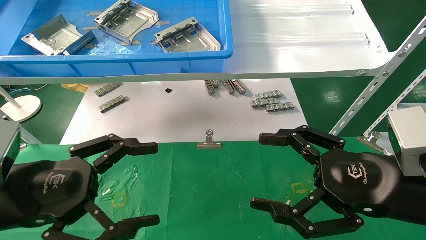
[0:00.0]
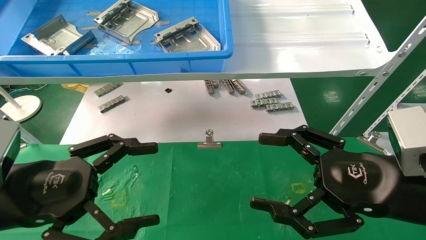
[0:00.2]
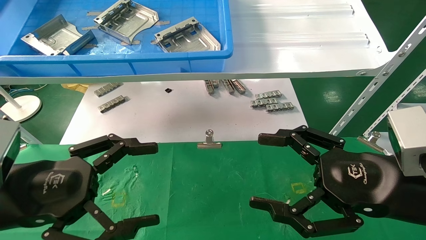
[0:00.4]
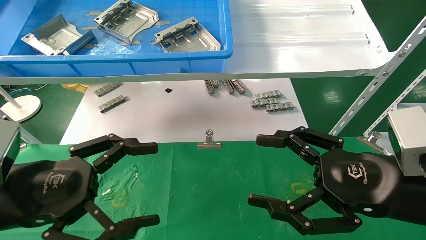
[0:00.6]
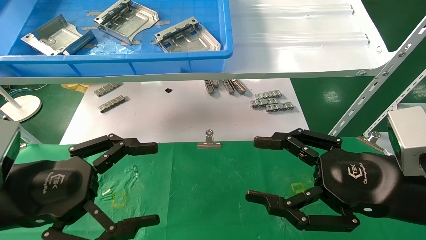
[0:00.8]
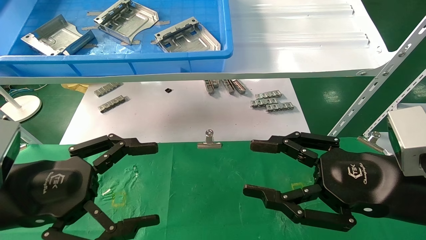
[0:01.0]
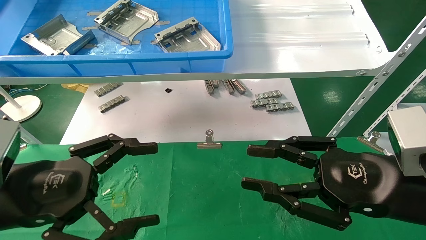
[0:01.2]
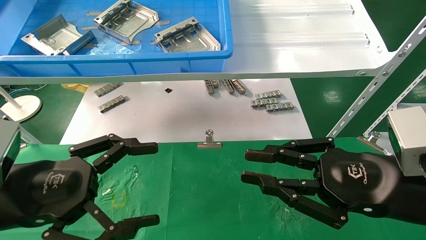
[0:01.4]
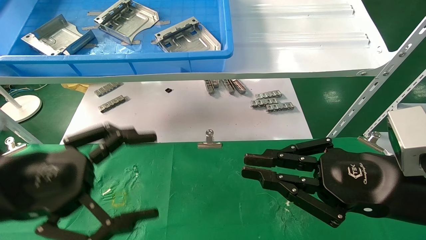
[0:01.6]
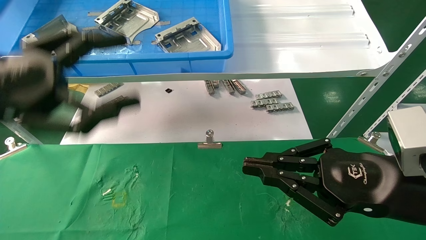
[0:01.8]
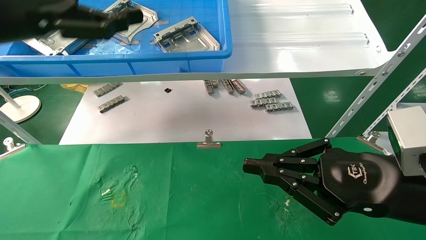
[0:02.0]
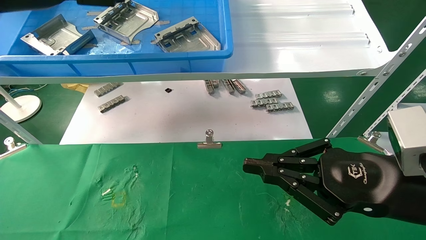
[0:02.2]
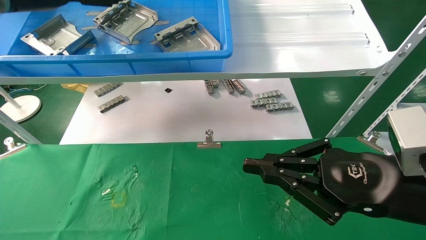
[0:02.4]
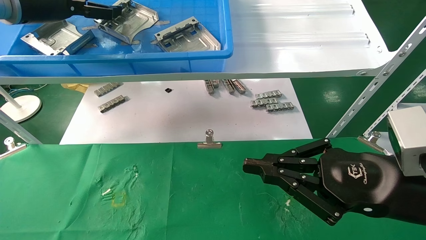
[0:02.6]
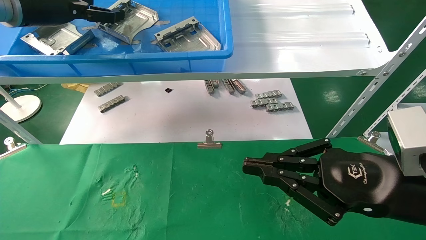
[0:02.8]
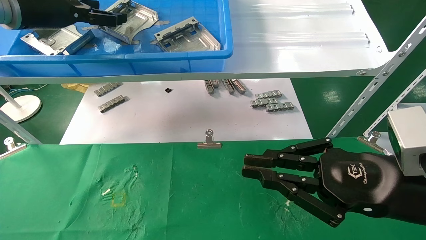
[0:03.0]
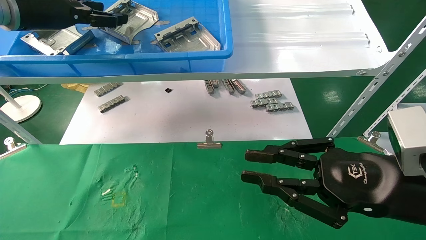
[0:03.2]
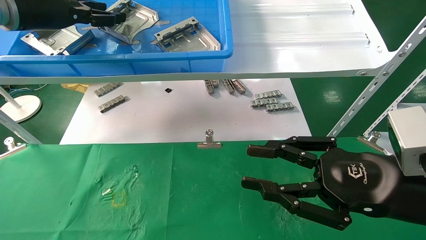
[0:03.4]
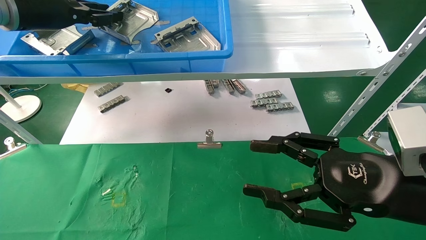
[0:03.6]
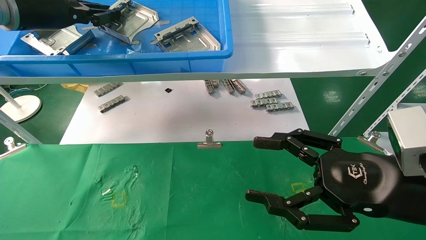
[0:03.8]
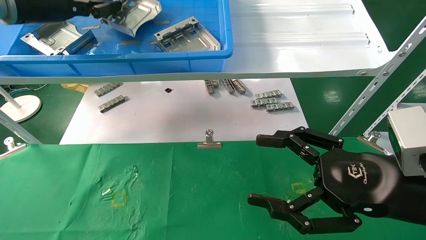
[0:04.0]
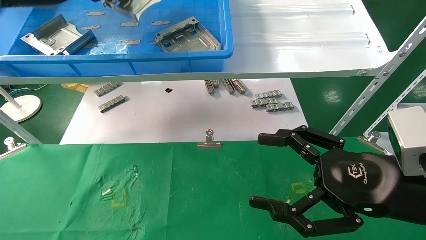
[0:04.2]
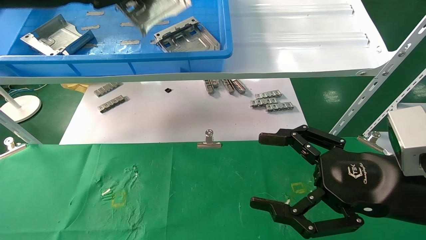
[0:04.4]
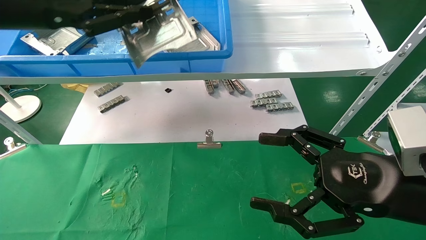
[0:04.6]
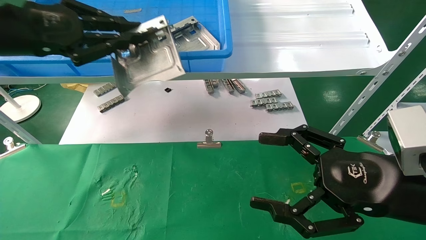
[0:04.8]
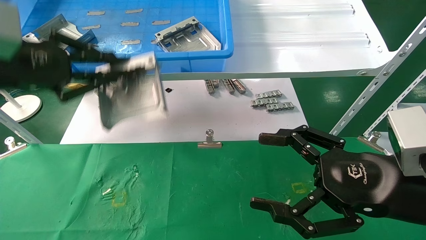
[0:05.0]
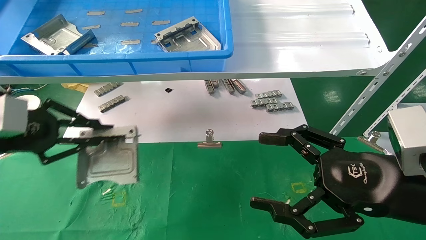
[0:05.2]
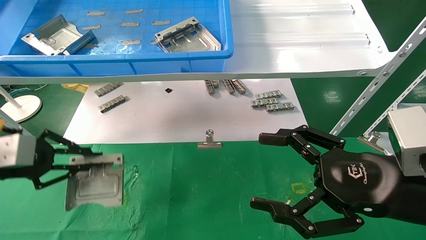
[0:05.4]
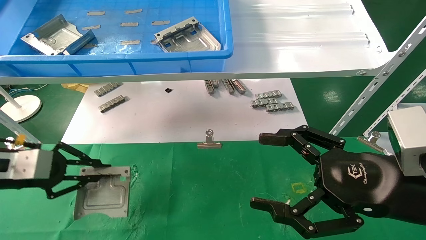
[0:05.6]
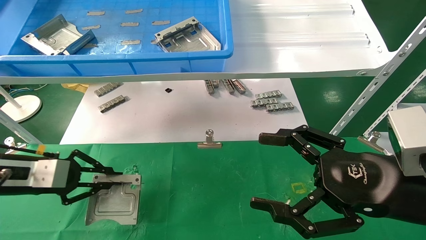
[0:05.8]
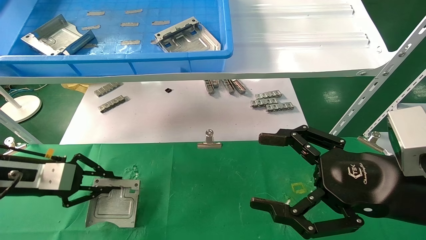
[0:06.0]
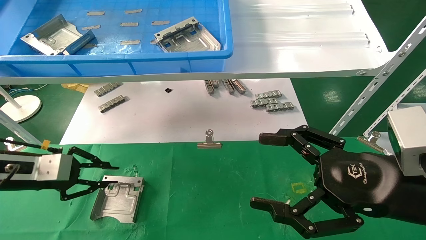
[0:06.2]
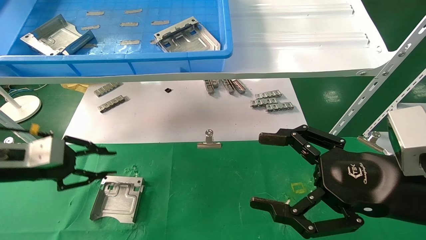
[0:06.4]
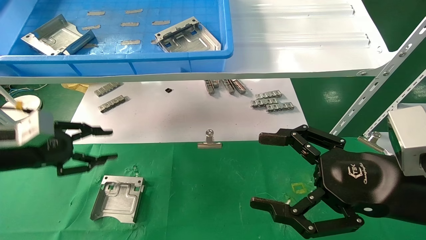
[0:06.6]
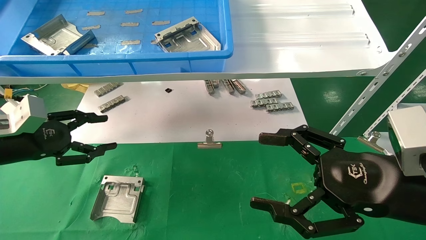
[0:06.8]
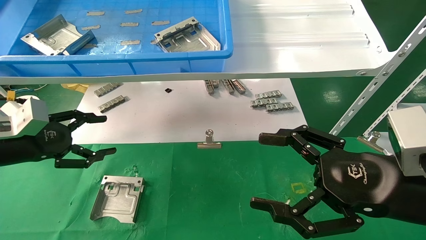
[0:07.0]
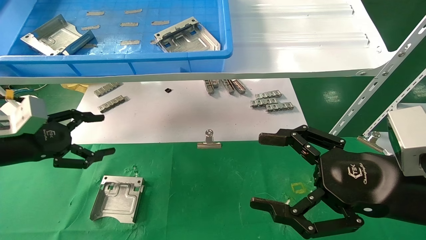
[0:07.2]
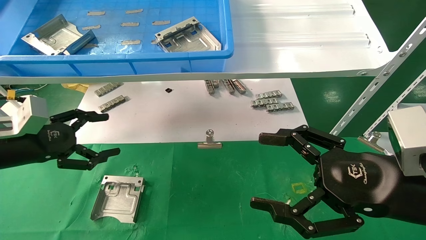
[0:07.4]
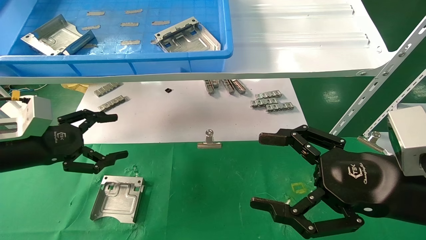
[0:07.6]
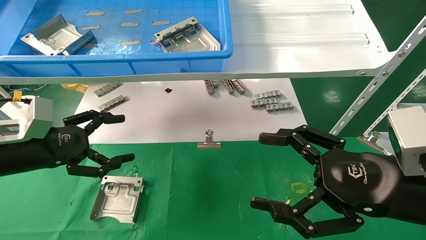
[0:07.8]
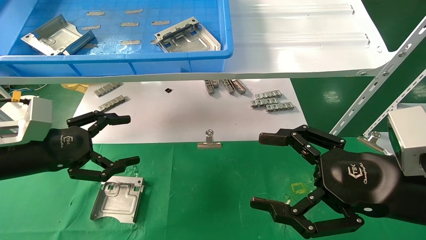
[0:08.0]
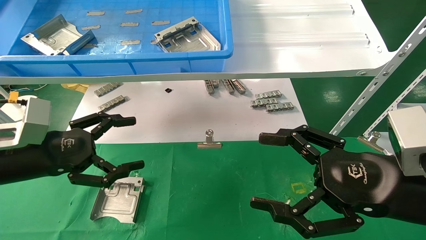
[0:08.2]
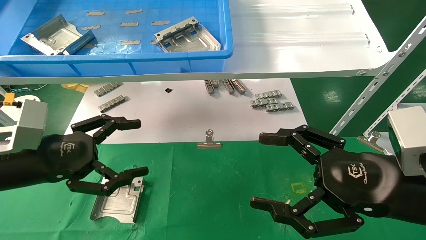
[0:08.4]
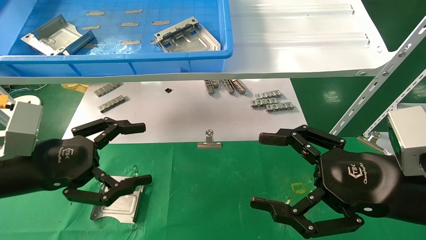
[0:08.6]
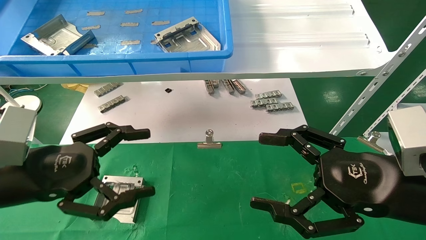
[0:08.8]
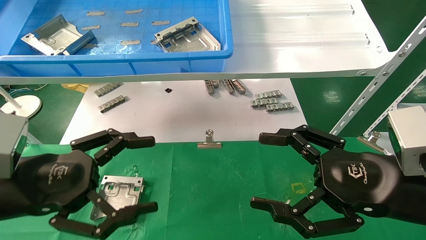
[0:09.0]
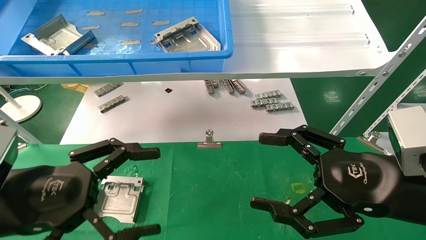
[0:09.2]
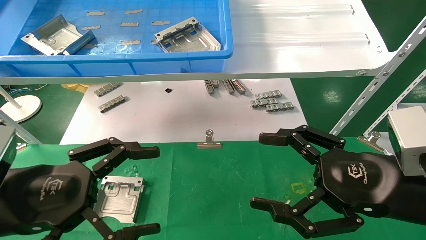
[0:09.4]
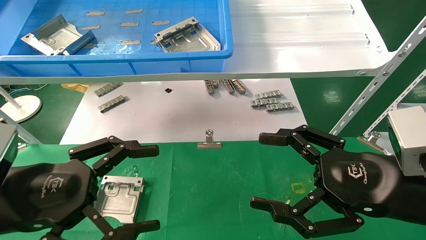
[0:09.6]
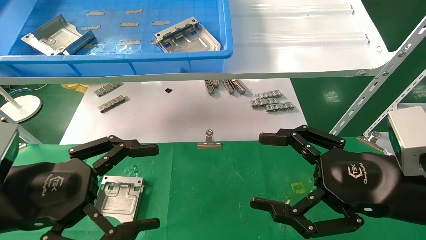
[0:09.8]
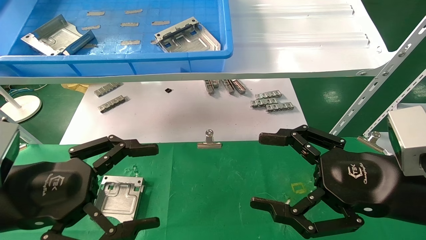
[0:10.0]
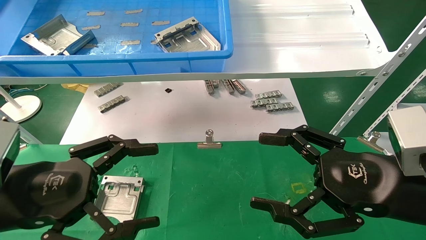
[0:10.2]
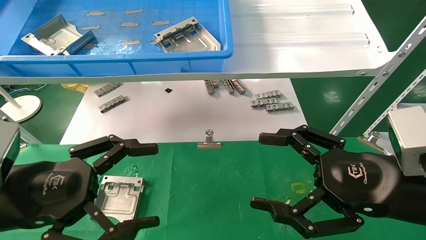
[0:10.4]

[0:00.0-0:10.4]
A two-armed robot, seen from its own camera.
Task of the whole recording: use the mechanical arm to pick up the parts and place them on the table.
Step, 0:01.2 to 0:04.2: Pick up the hard drive bracket from the feeding area.
Step, 0:04.4 to 0:07.2: Place the hard drive bracket into the box.
0:00.0 to 0:01.4: The right gripper closes its fingers.
0:01.4 to 0:03.0: The left gripper shifts some 30 cm upward and forward.
0:03.0 to 0:04.4: The right gripper opens its fingers. The left gripper moves backward, roughly 5 cm, and closes up.
0:04.4 to 0:06.0: The left gripper travels downward by some 25 cm.
0:06.0 to 0:07.4: The left gripper opens.
0:07.4 to 0:09.0: The left gripper shifts roughly 15 cm backward and to the right.
0:09.0 to 0:10.4: The grippers stay close to where they were, moving slightly.

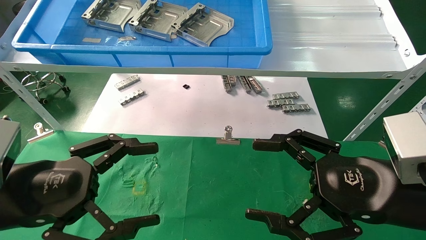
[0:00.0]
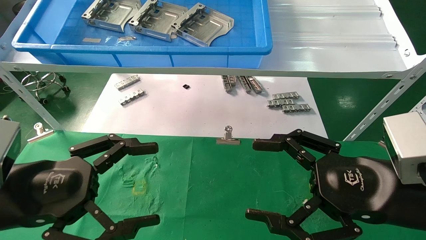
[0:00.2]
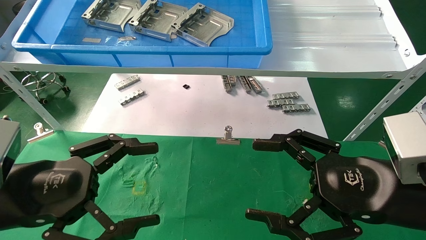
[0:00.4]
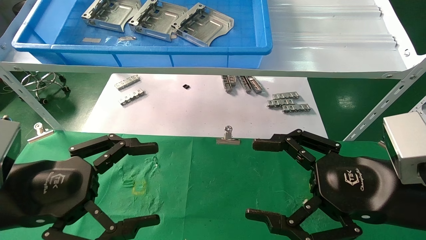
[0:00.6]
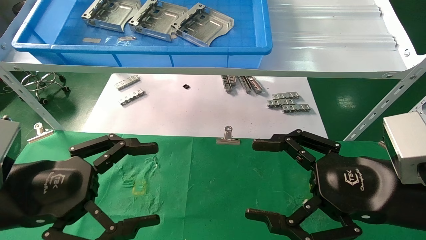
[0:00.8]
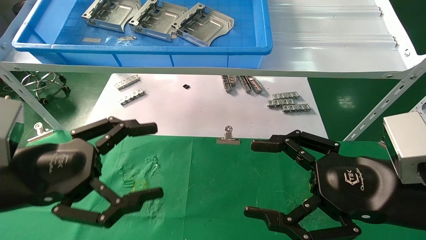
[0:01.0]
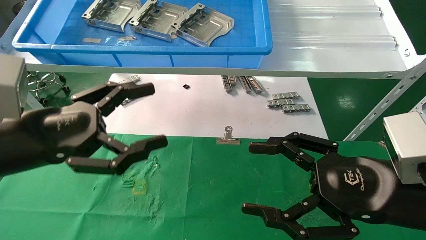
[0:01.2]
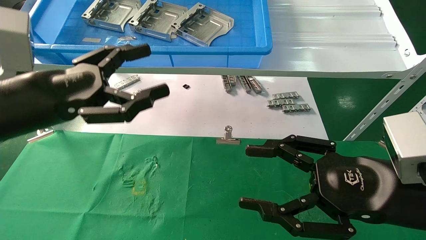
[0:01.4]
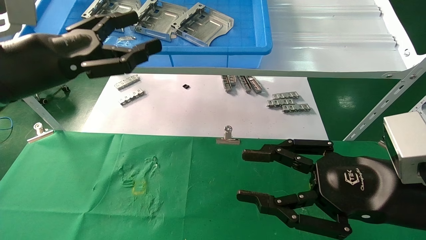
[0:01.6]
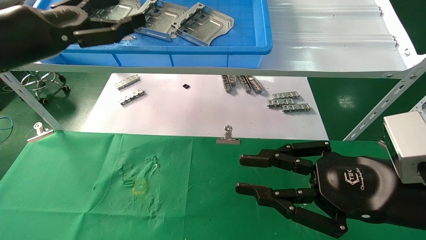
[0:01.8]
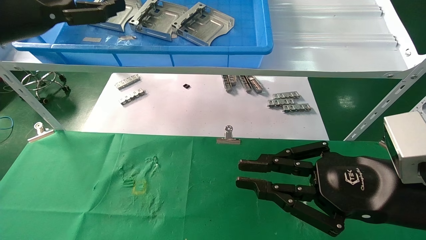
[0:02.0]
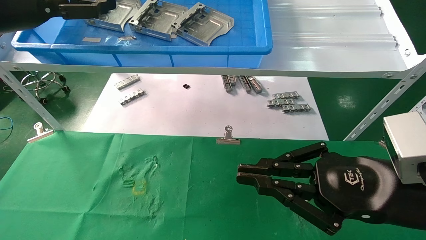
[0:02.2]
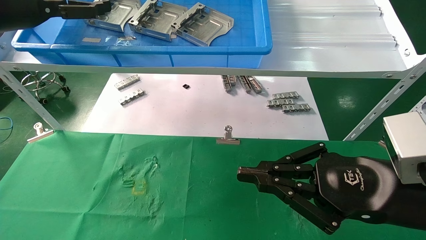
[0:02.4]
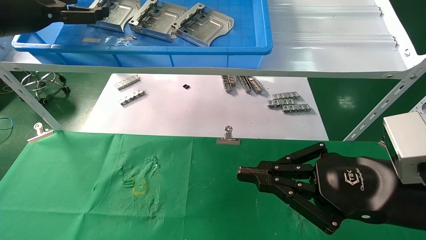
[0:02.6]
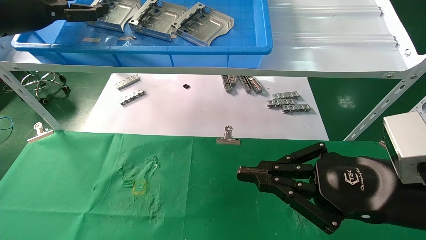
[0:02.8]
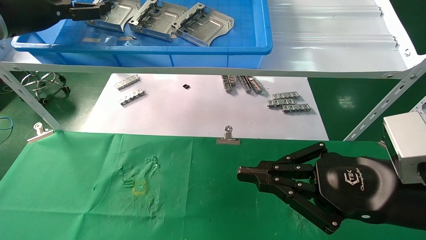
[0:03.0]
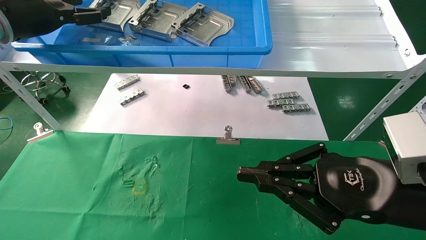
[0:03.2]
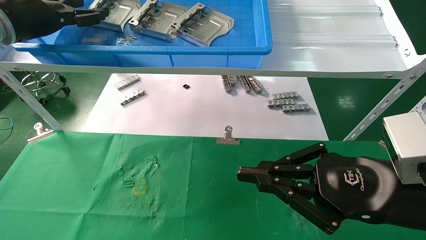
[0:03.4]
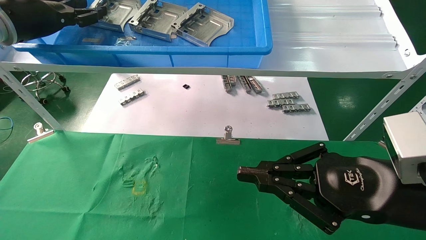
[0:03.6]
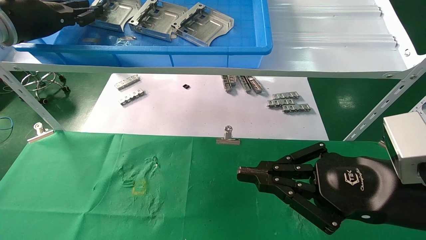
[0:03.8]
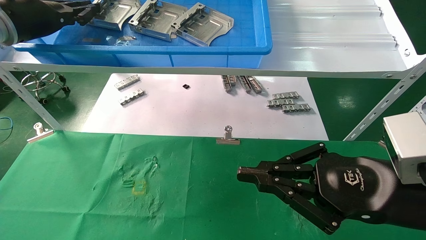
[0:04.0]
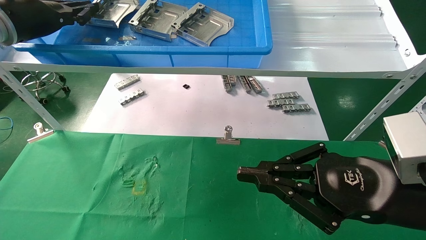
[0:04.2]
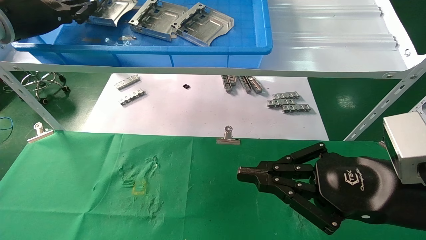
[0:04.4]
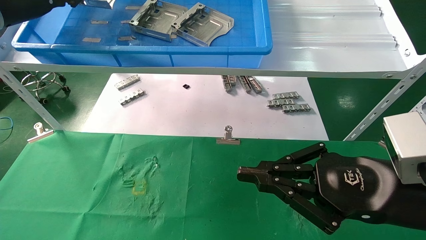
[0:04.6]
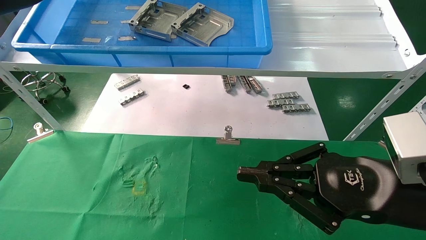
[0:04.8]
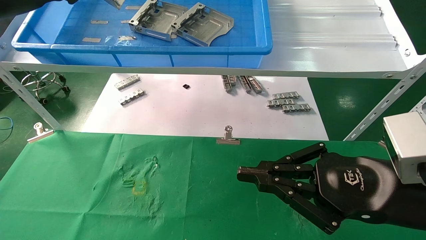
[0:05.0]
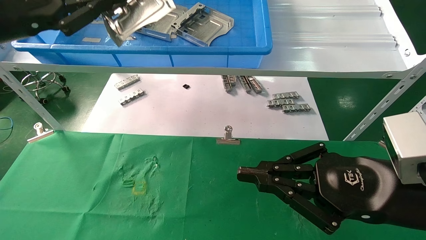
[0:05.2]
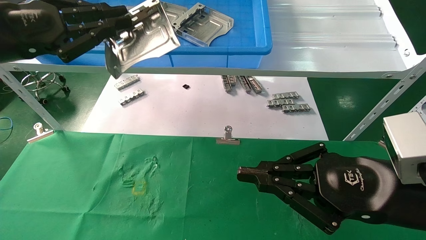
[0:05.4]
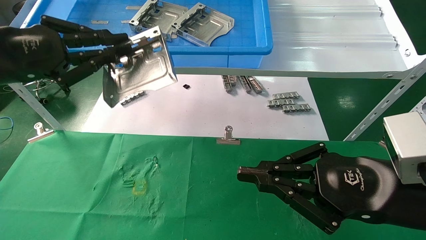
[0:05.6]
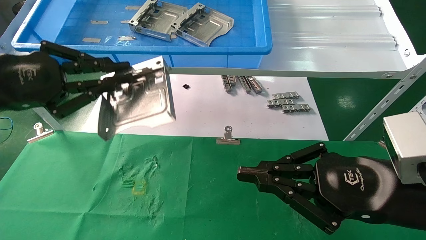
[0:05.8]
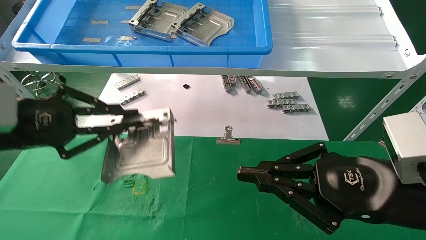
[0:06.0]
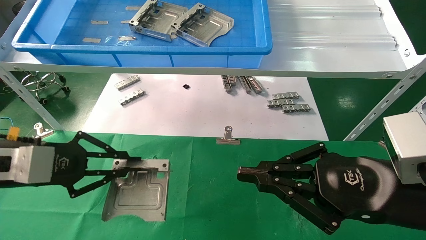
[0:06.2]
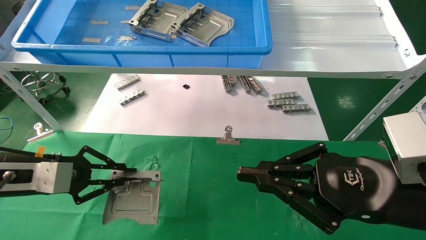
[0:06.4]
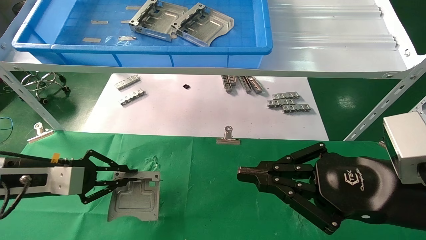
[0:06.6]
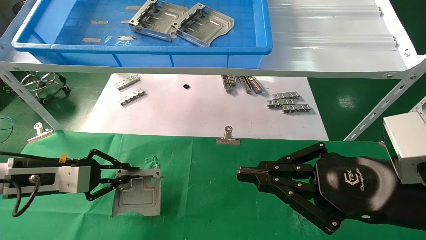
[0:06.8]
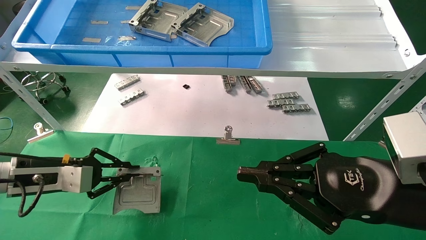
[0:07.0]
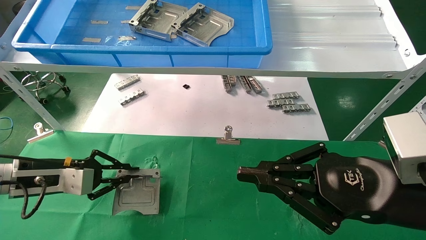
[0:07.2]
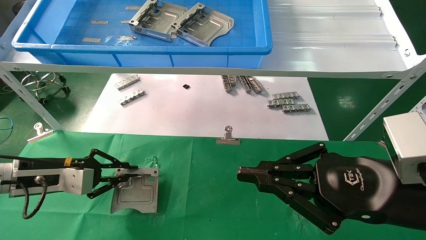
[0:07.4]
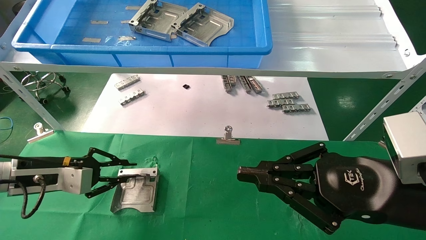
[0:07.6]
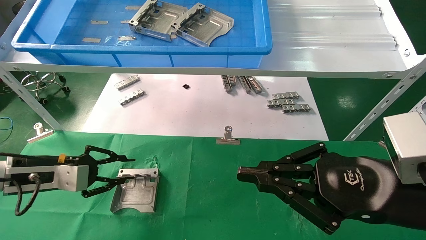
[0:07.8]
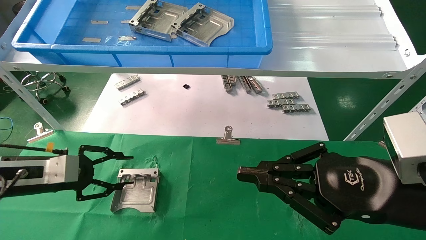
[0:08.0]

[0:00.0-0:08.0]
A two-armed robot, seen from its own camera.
Task of the whole recording: use the mechanical arm to pick up the parts and place them on the table.
Step, 0:01.2 to 0:04.0: Pick up the hard drive bracket from the feeding area.
Step, 0:04.2 to 0:07.8: Place the hard drive bracket into the box.
0:00.0 to 0:01.6: The right gripper closes; the left gripper moves upward and forward, approximately 15 cm.
0:01.6 to 0:03.2: The left gripper goes about 15 cm forward, upward and to the left. Meanwhile the right gripper closes up.
0:03.2 to 0:04.8: The left gripper closes its fingers.
0:04.8 to 0:06.4: The left gripper shifts some 25 cm downward.
